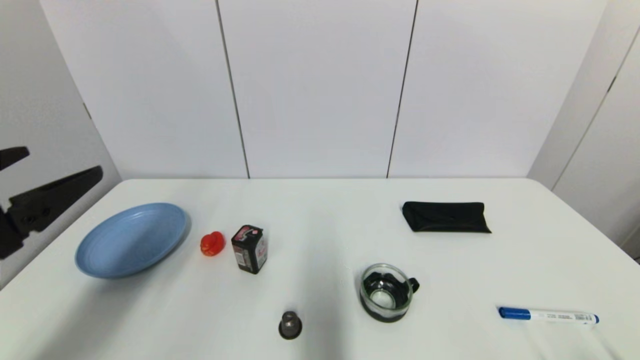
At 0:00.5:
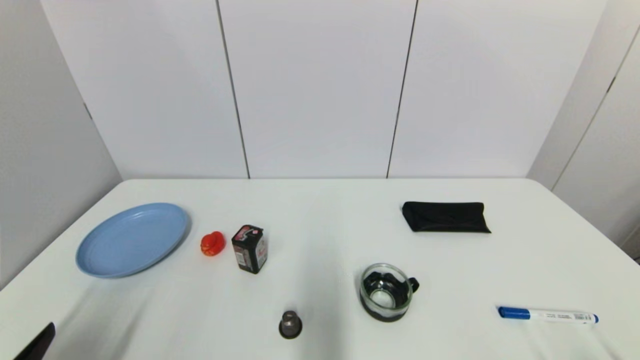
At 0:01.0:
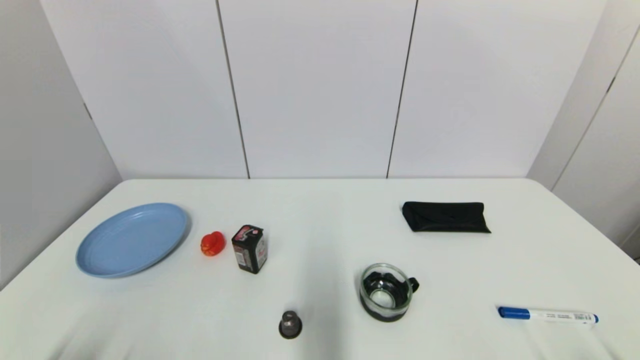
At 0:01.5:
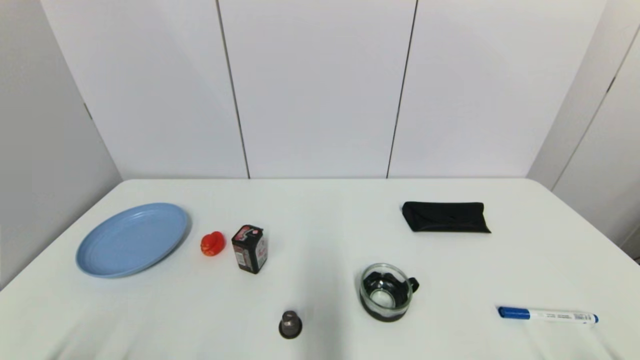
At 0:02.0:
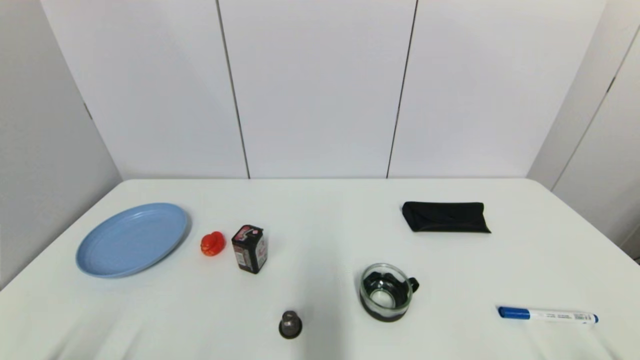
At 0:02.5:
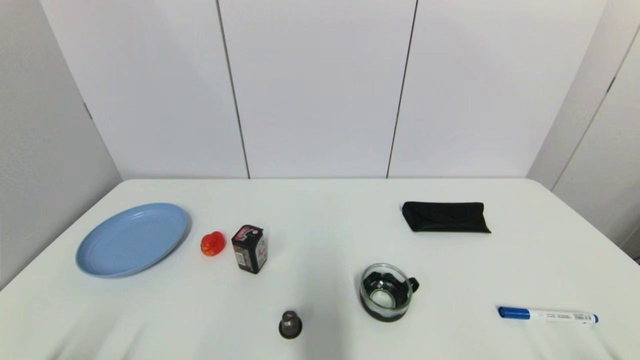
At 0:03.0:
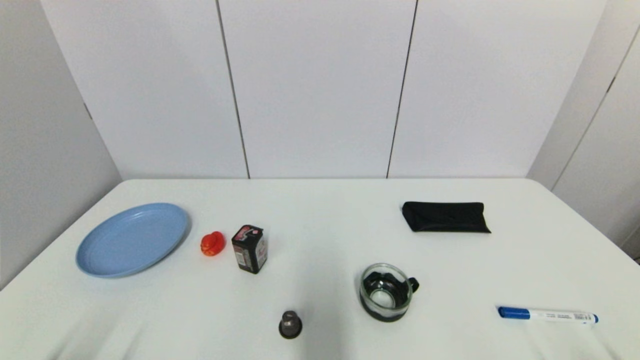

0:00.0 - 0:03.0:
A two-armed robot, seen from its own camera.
0:00.0 - 0:01.5: The left gripper goes about 25 cm downward and backward.
0:01.5 - 0:03.0: Both grippers stay about where they are.
